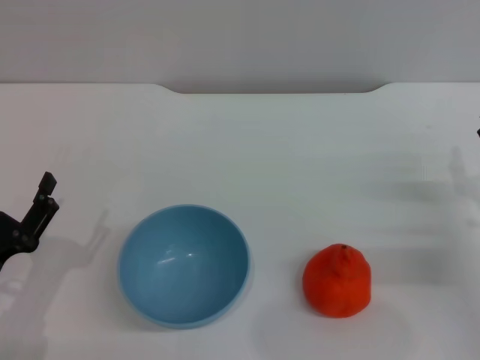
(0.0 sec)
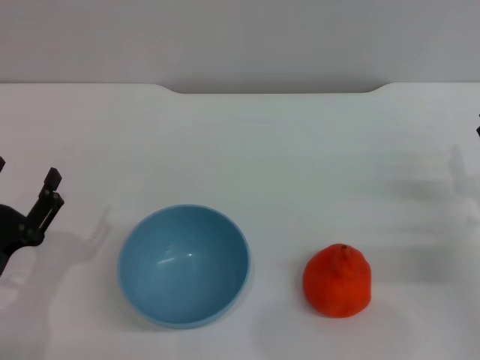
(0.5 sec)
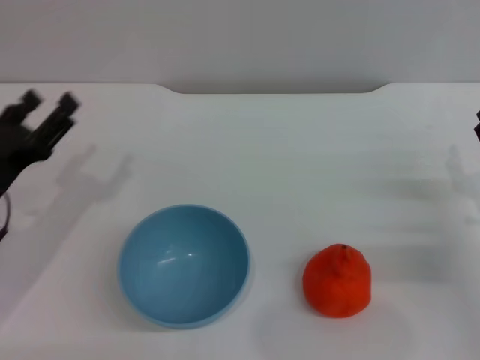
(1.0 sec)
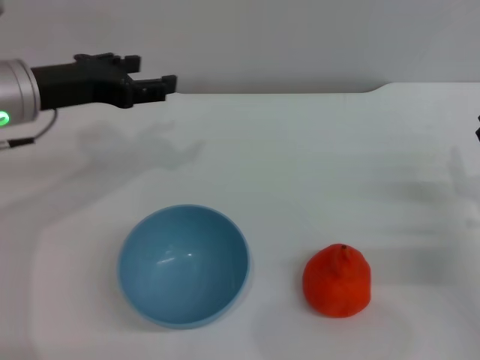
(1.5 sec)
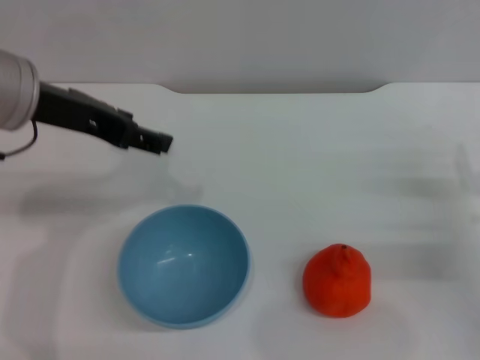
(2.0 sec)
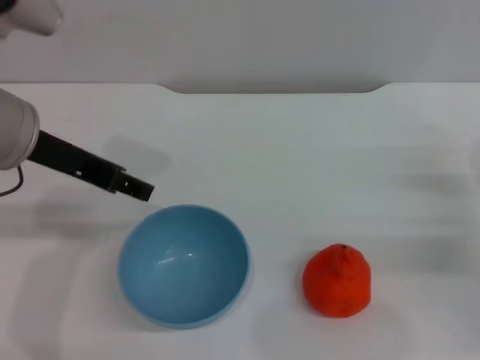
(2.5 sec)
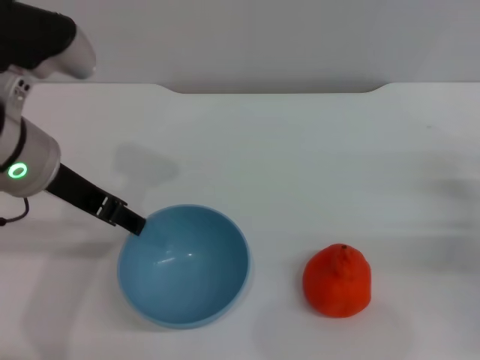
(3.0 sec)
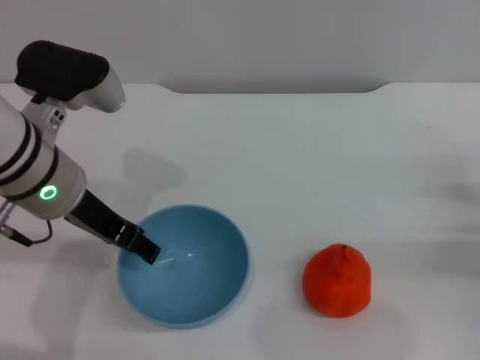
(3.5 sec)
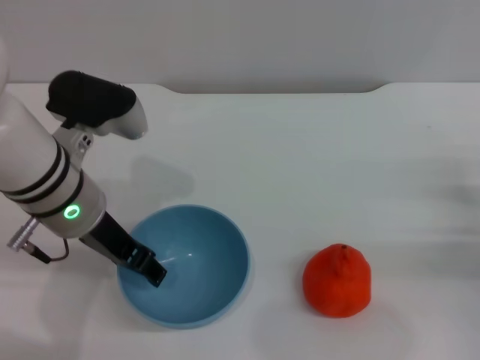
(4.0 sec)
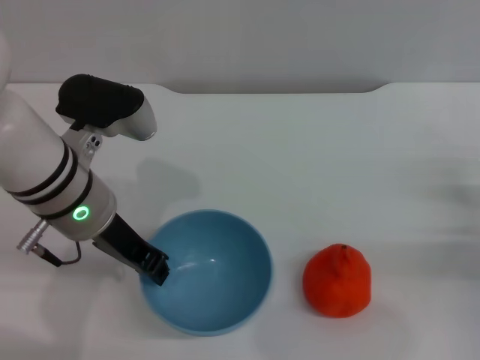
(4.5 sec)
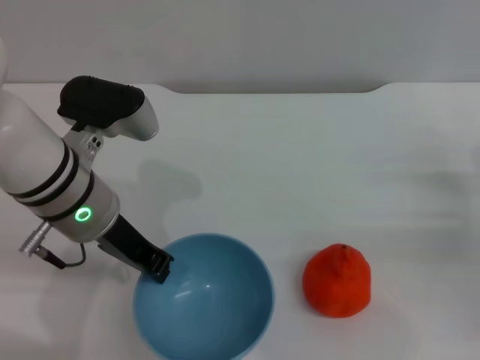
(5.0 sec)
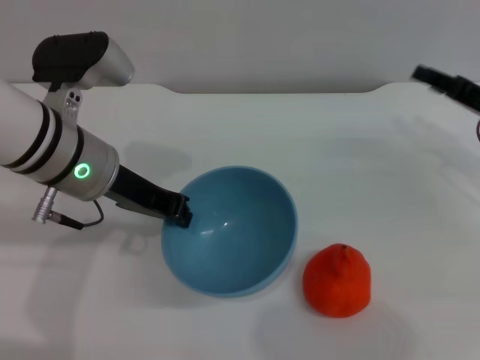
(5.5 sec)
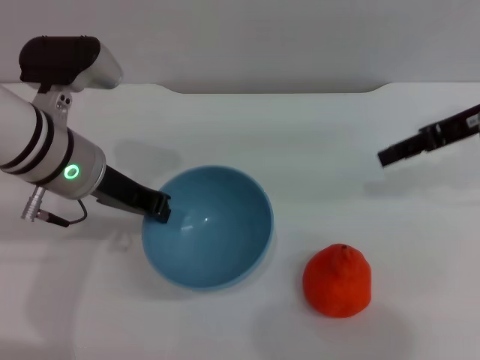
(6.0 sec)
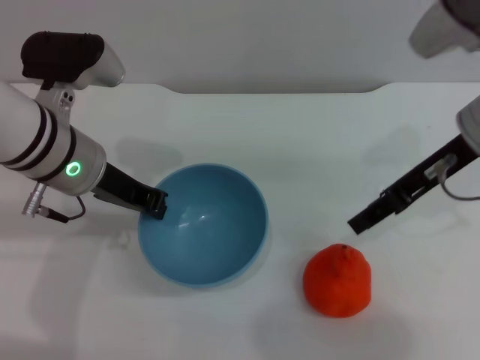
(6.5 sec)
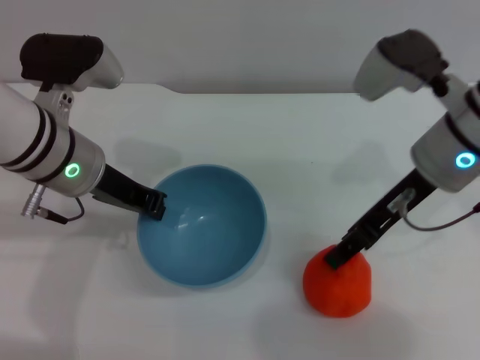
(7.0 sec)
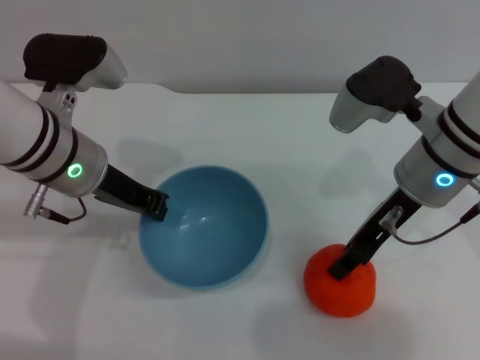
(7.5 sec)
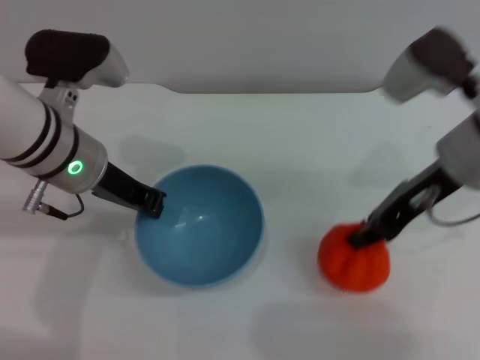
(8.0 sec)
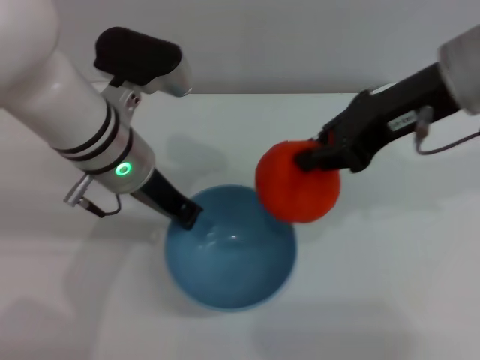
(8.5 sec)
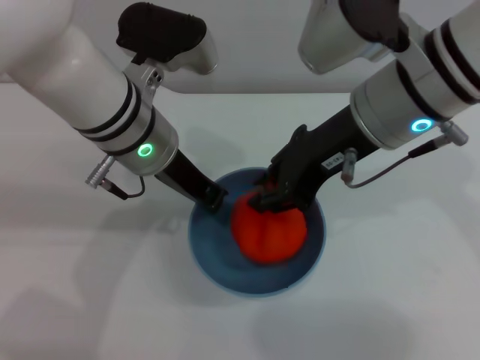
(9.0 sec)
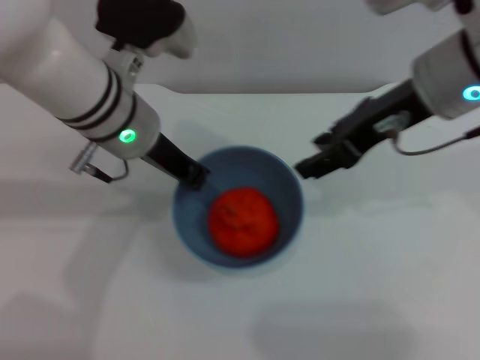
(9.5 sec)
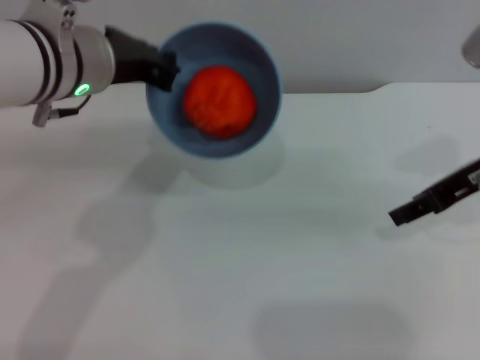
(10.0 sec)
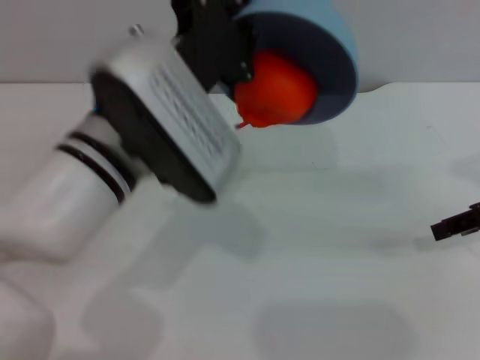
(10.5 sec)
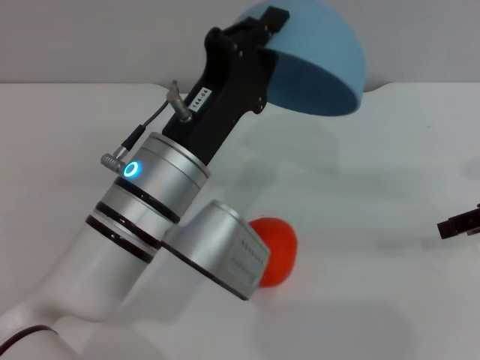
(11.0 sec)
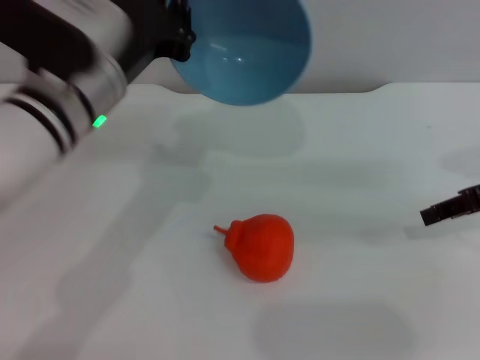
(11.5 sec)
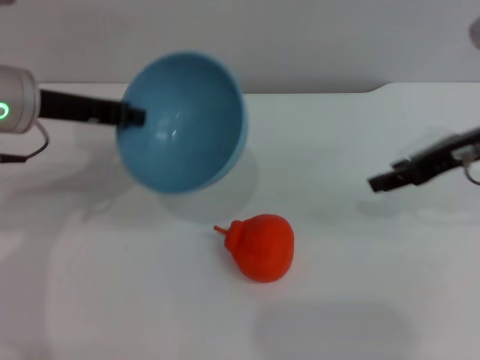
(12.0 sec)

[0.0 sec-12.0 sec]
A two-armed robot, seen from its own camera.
Task of the whole recording: put the orange into the blue bowl and pour it out repeatedly.
Step, 0.0 sec to 5.5 sec: Pick up the bowl with the left gripper.
Step, 6.0 sec to 8.0 sec: Pick up the orange with the right gripper.
Step, 8.5 sec to 9.0 sec: Place the orange into the bowl.
Step, 9.5 sec to 11.0 sec: Pour the orange out of the bowl.
0.0 sec to 2.0 sec: The left gripper heads upward and forward, covering roughly 25 cm.
2.0 sec to 4.0 sec: The left gripper moves downward, roughly 10 cm.
4.0 sec to 6.0 sec: The right gripper heads upward and forward, covering some 20 cm, while the left gripper closes.
6.0 sec to 8.0 sec: The right gripper heads to the left, covering some 10 cm, and closes its fingers.
8.0 sec to 10.0 sec: The left gripper heads upward, covering approximately 5 cm. Meanwhile the right gripper moves to the right, some 5 cm, and opens its fingers.
10.0 sec to 12.0 sec: The left gripper heads to the left, covering some 10 cm.

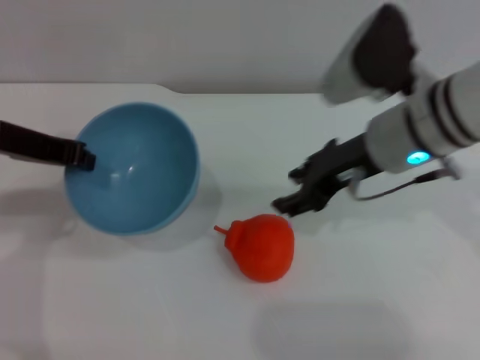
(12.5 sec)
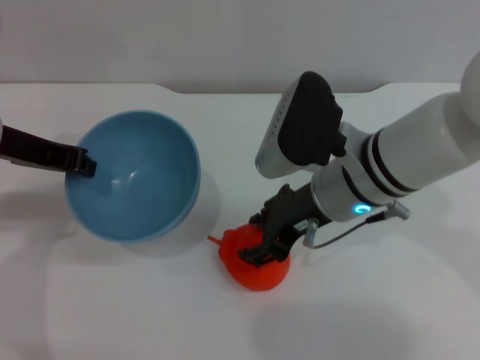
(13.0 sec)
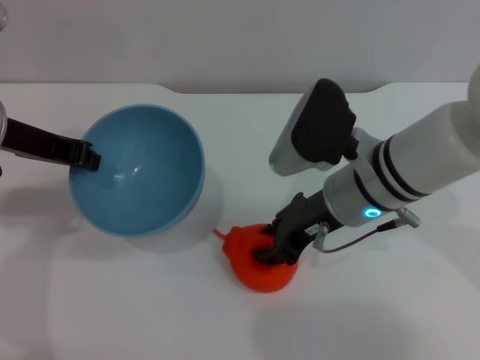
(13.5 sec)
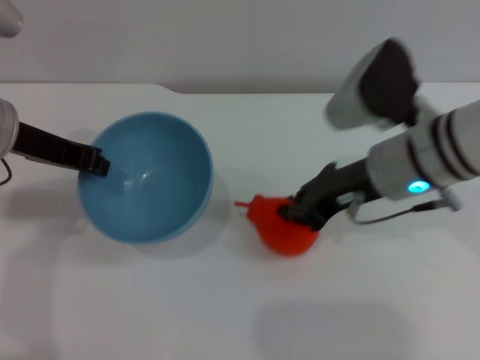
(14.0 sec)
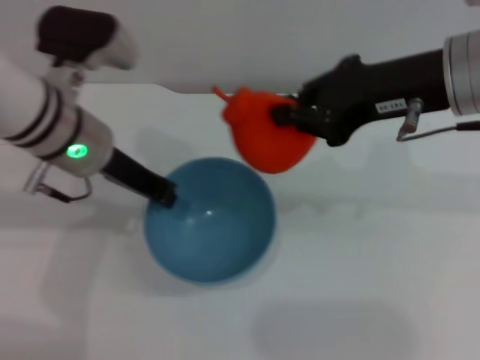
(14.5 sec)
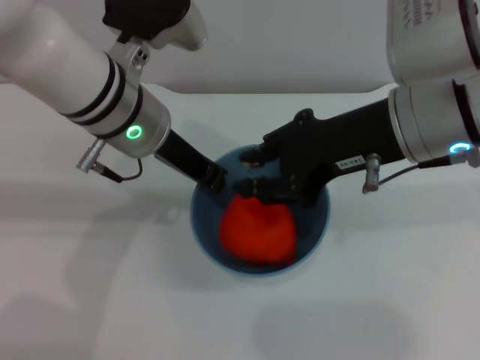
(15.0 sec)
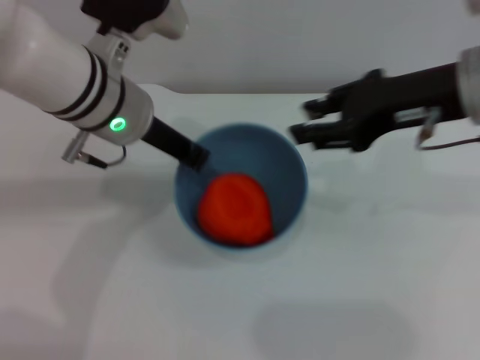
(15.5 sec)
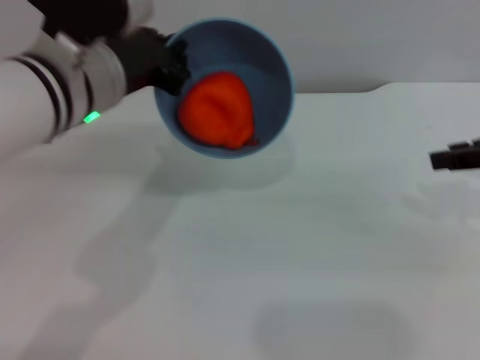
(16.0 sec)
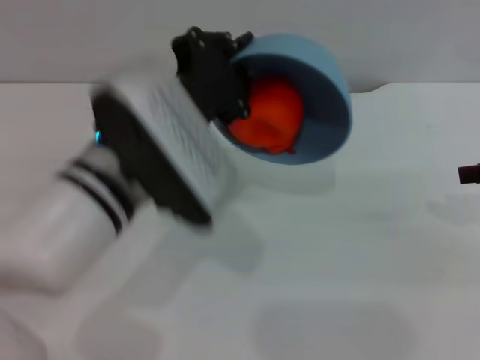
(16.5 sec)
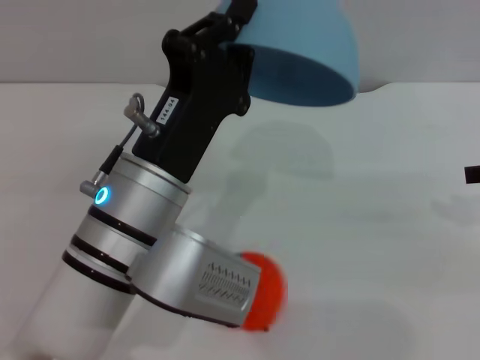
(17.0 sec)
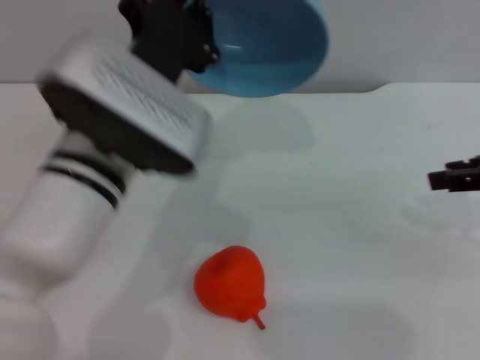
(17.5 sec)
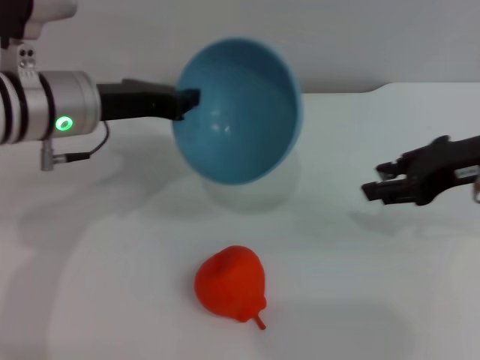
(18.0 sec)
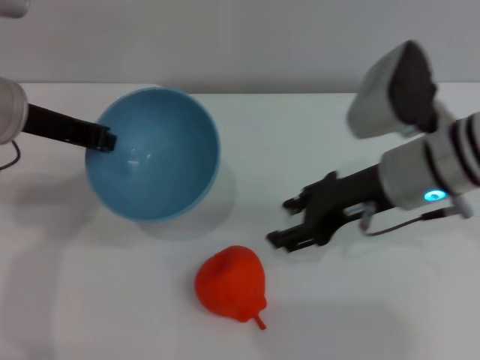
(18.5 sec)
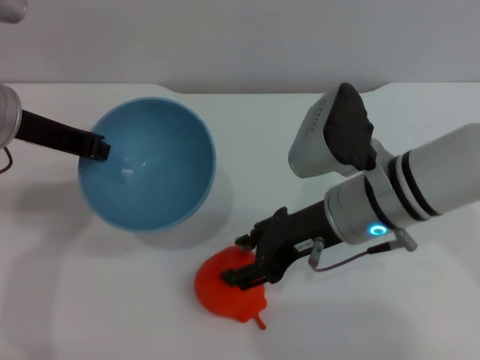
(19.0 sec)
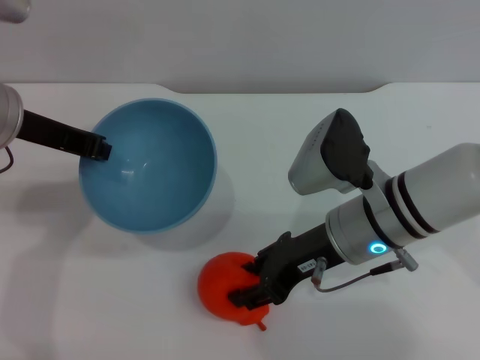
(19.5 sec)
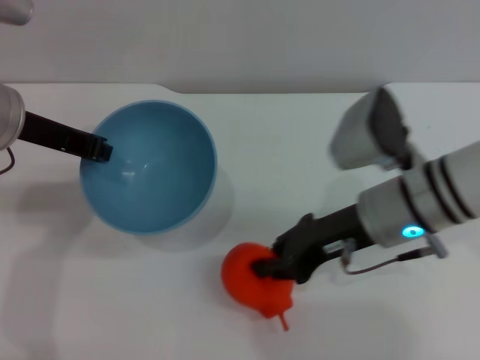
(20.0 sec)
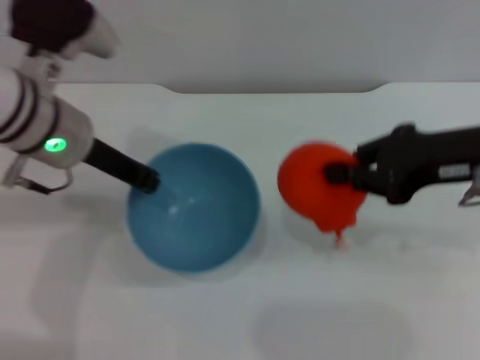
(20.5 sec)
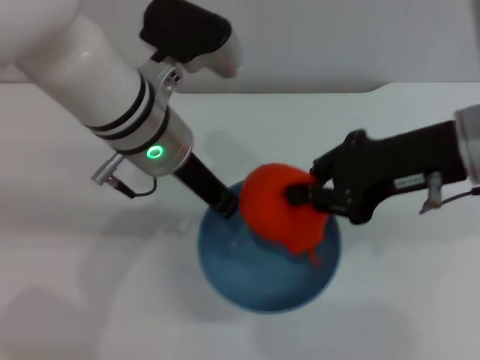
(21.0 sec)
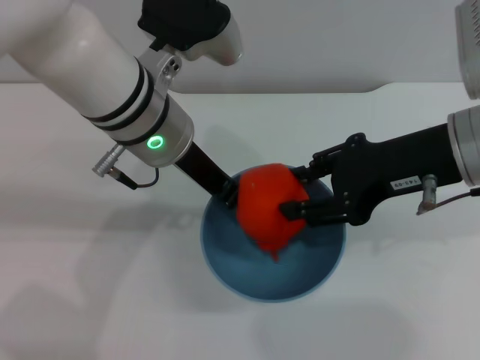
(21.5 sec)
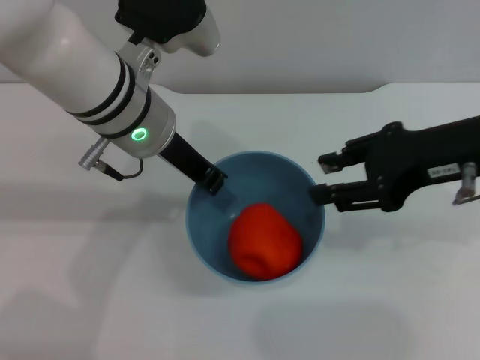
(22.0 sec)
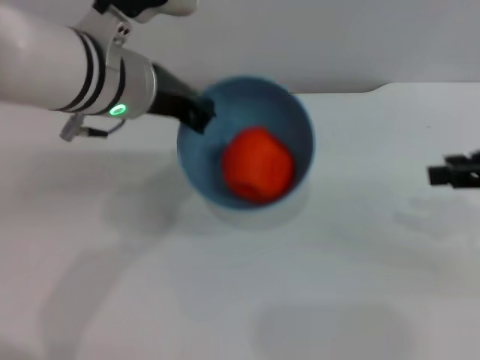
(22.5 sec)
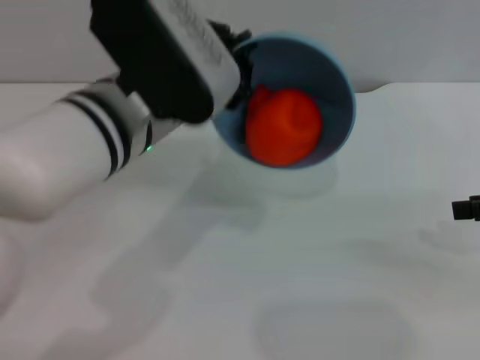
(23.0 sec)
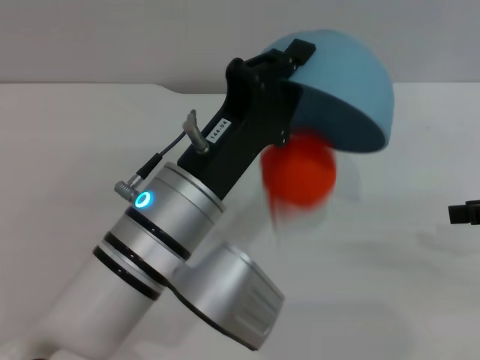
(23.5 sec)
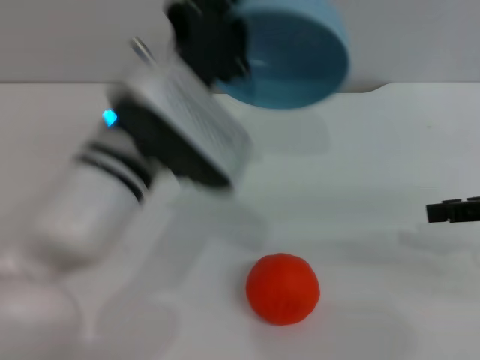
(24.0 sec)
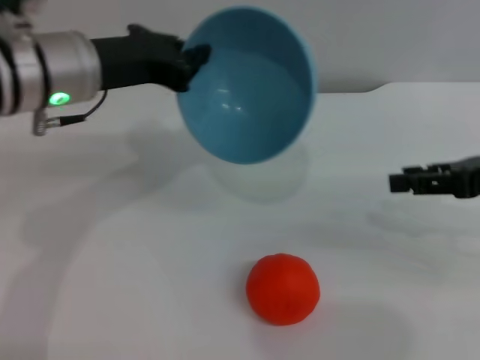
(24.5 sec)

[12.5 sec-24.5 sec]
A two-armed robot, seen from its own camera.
Task of the whole recording: put the orange into the blue bowl and pour it out repeatedly.
Step, 14.5 sec to 15.0 sec: Place the orange into the bowl.
Step, 15.5 sec to 17.0 sec: Pour the orange out of the bowl.
Step, 17.5 sec to 20.0 sec: Pick up the orange with the right gripper.
Step, 20.5 sec to 22.0 sec: Place the orange into the bowl.
Step, 22.5 sec to 23.5 sec: Pour the orange out of the bowl.
12.5 sec to 14.5 sec: The right gripper moves upward, roughly 10 cm, and closes its fingers, while the left gripper travels to the right by roughly 10 cm.
14.5 sec to 16.5 sec: The right gripper goes about 15 cm to the right, and opens its fingers; the left gripper moves backward and to the right, roughly 10 cm.
16.5 sec to 18.5 sec: The left gripper travels to the left and forward by some 15 cm. The right gripper goes roughly 20 cm to the left.
18.5 sec to 20.5 sec: The right gripper heads to the right and upward, covering roughly 10 cm, and closes its fingers. Meanwhile the left gripper heads to the right, covering approximately 5 cm.
20.5 sec to 22.5 sec: The left gripper shifts roughly 5 cm to the right. The right gripper moves to the right, about 10 cm, and opens up.
22.5 sec to 24.5 sec: The left gripper shifts roughly 5 cm to the left, and travels backward and back again, roughly 10 cm each way.

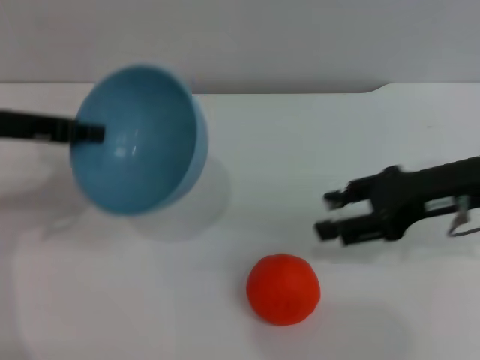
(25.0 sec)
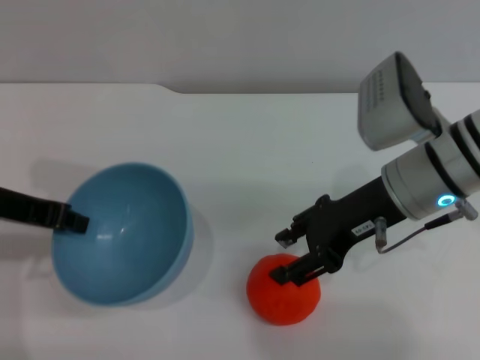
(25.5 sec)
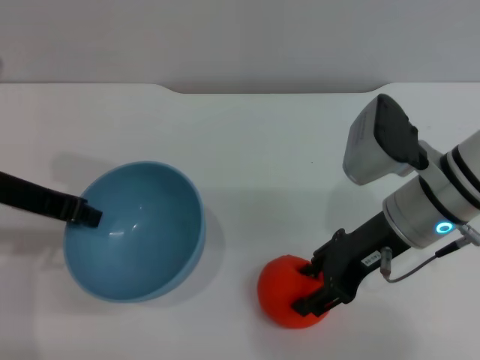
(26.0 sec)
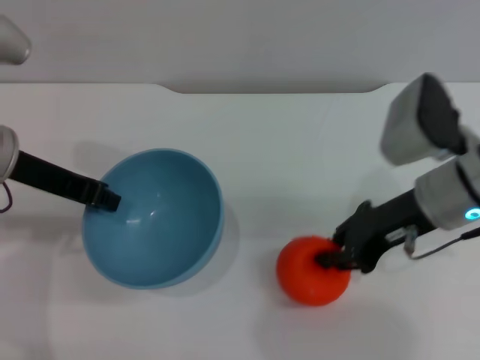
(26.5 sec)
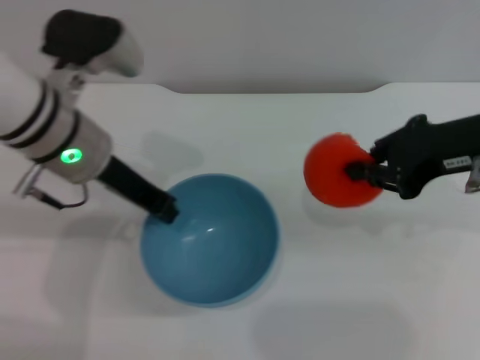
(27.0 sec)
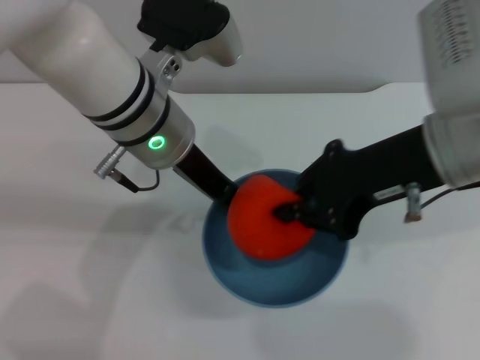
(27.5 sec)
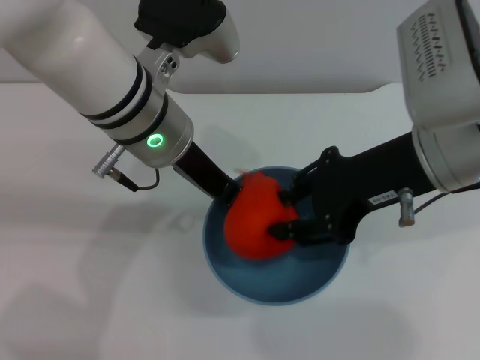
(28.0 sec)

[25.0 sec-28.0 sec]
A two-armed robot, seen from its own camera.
Task of the whole recording: put the orange into the blue bowl and pour it out repeatedly.
Step, 25.0 sec to 26.5 sec: Pick up the orange with the right gripper.
26.5 sec to 28.0 sec: The left gripper shifts some 15 cm to the right, while the right gripper shifts about 10 cm upward, and closes and opens again.
